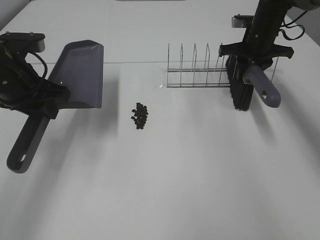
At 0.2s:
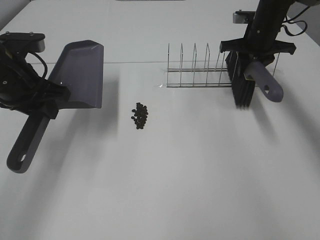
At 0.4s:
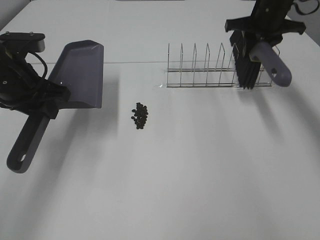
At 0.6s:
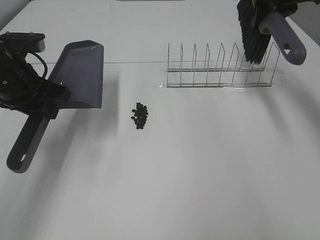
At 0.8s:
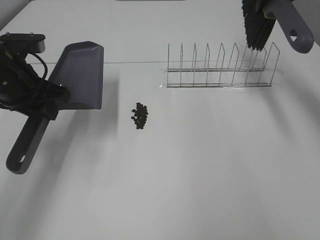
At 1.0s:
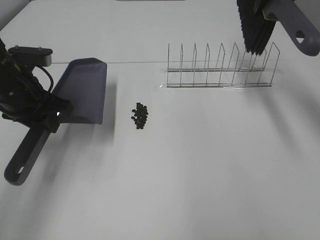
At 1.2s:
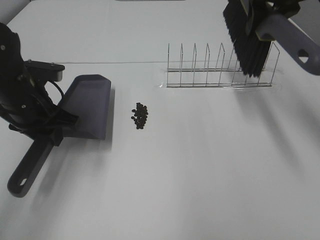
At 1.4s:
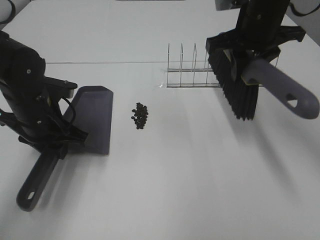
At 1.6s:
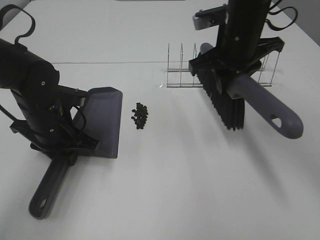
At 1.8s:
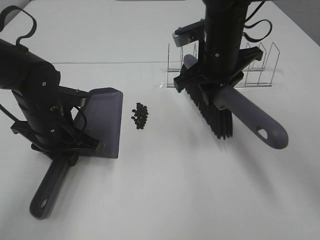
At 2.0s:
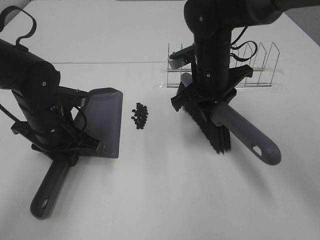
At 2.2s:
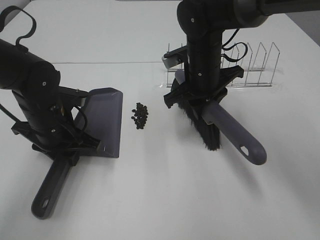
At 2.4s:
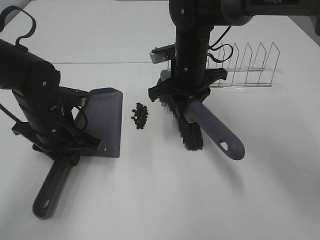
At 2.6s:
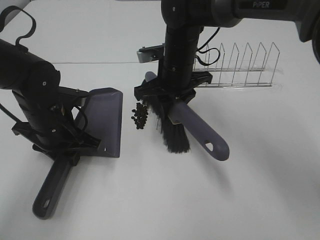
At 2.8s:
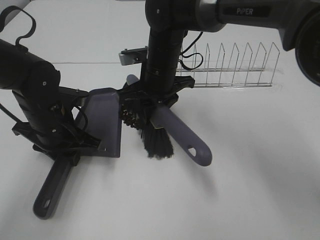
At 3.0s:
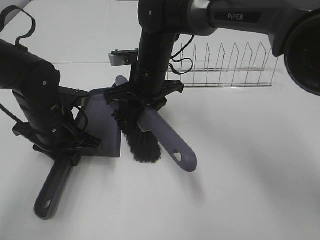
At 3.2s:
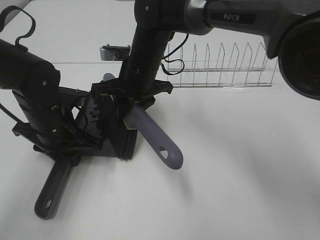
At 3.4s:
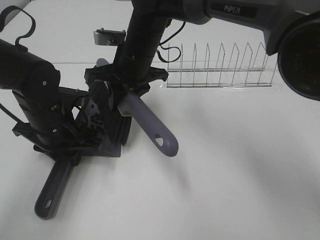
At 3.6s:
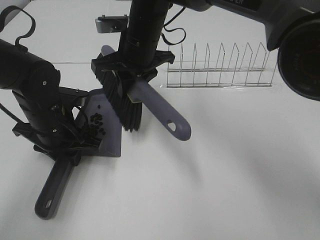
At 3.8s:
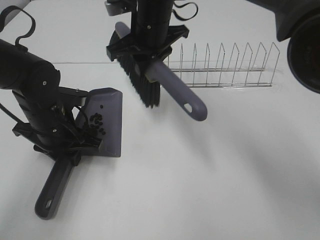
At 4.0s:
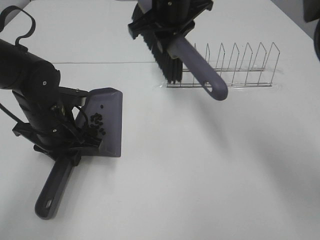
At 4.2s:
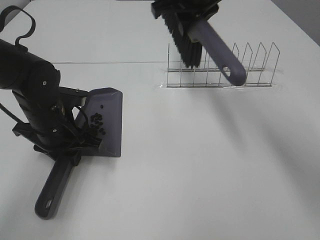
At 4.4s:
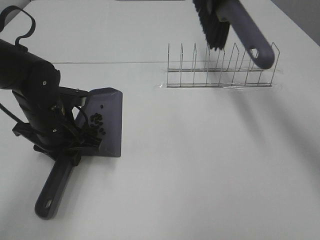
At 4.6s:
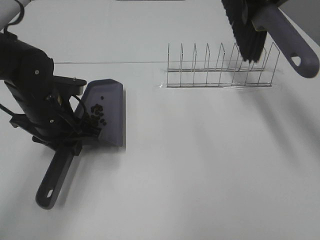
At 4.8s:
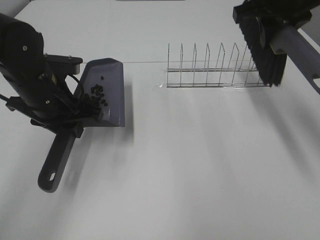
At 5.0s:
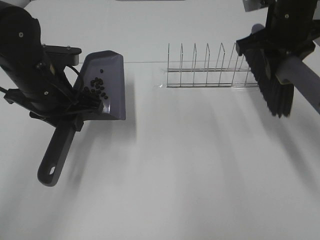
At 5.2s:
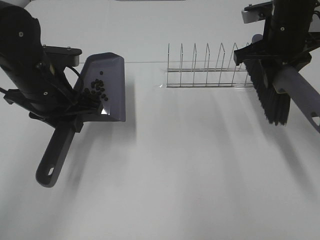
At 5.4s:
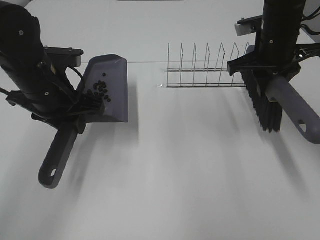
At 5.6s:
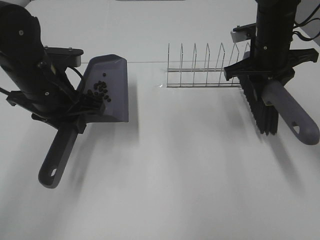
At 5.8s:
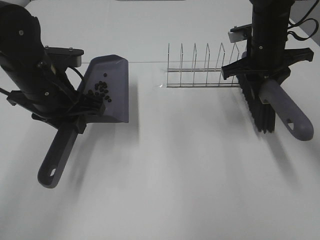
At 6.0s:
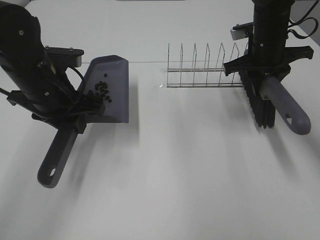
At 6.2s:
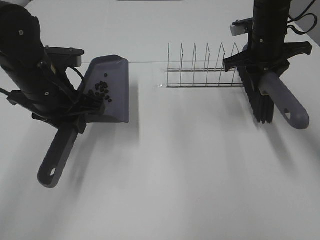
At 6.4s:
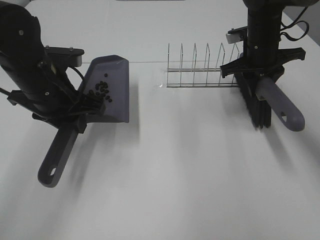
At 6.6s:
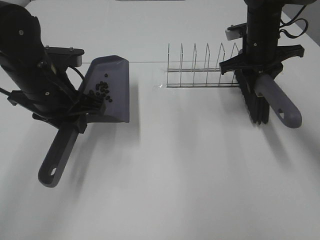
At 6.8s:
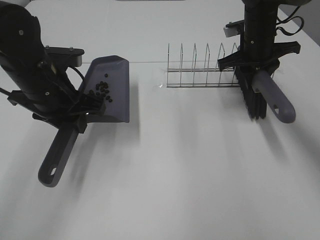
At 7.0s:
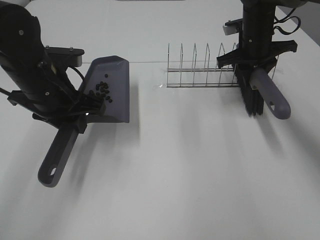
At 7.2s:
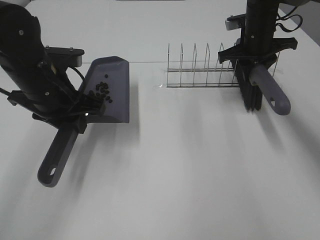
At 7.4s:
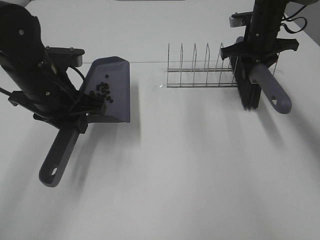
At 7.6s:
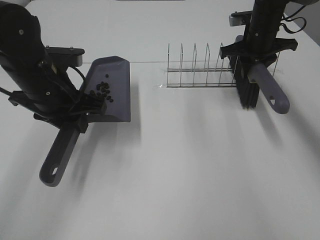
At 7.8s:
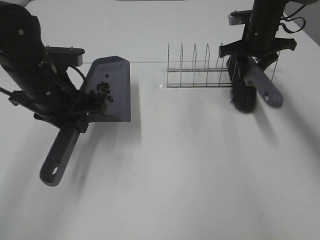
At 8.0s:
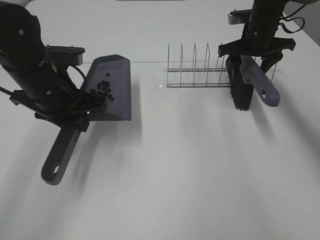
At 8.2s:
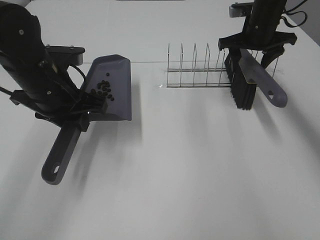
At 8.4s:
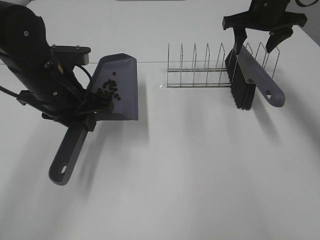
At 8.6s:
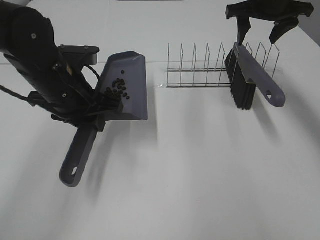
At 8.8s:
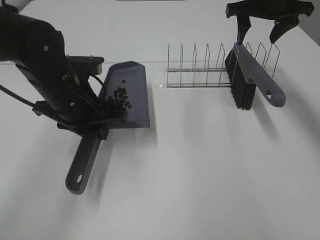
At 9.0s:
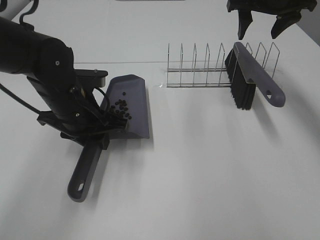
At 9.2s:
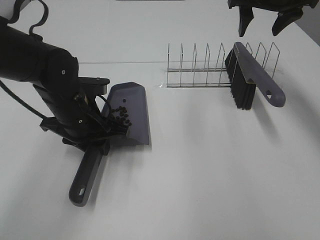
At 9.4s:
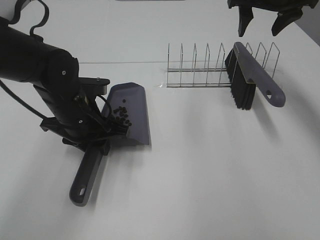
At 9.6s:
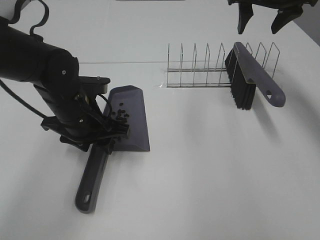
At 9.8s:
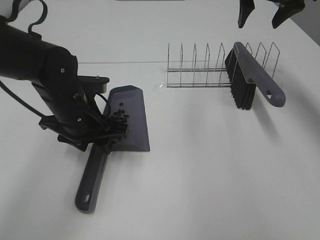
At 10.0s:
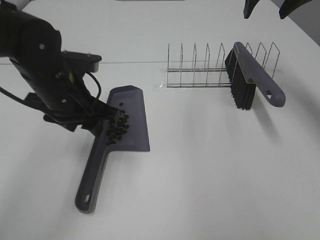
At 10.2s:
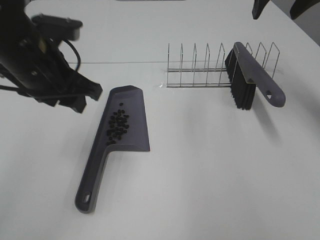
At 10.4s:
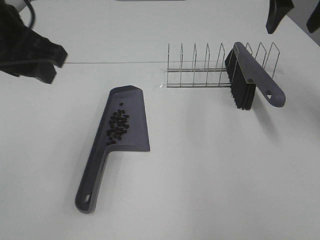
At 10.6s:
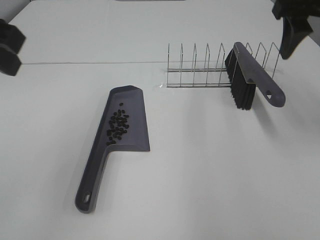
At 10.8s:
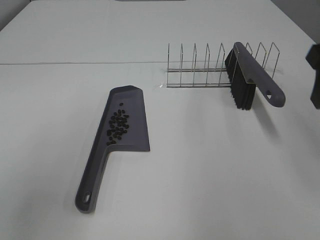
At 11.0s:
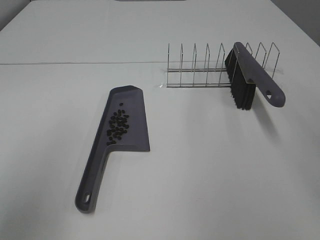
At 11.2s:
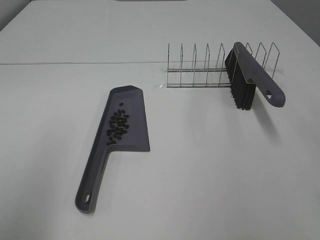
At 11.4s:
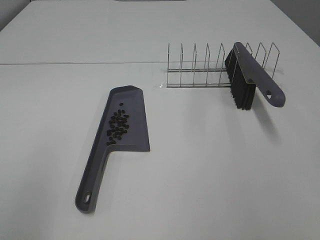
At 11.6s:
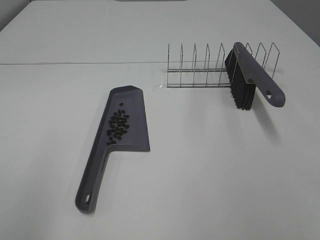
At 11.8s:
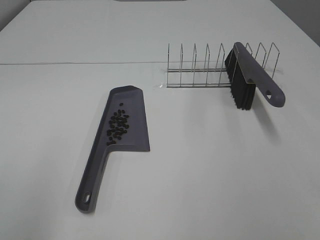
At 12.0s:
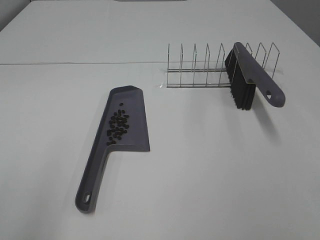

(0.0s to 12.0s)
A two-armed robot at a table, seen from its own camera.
Task of the whole recording: Sweep Coffee Bean.
Step, 0.0s - 3.4s: Right hand:sweep the coffee beans into the dustpan.
Step, 3.6s - 8.4s: Right hand:place the broom on the rack.
Step, 8.6s - 9.6s: Left hand:place the dustpan on the table.
0.0s - 1.6s: The right gripper shifts approximately 20 cm backward, to the left and upward, while the left gripper shifts about 10 cm downward.
1.6s - 3.0s: The right gripper travels to the left and downward by approximately 15 cm.
3.0s - 4.4s: The right gripper heads upward and to the right, covering roughly 25 cm.
4.4s - 6.0s: The right gripper travels downward and to the right by some 15 cm. The left gripper travels upward by some 5 cm.
6.0s - 7.6s: The right gripper heads forward, covering approximately 5 cm.
7.6s - 9.0s: The left gripper shifts by about 5 cm, while the right gripper travels upward by approximately 10 cm, and opens its fingers.
9.0s - 10.4s: The right gripper moves backward and upward, approximately 10 cm, while the left gripper shifts some 20 cm upward, and opens.
10.4s - 12.0s: The left gripper travels backward and to the left by about 20 cm; the right gripper travels backward by some 35 cm.

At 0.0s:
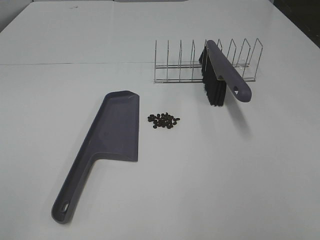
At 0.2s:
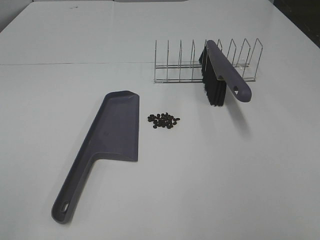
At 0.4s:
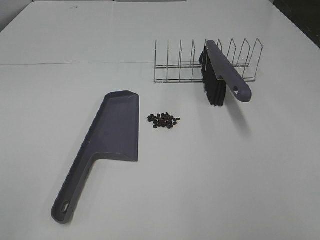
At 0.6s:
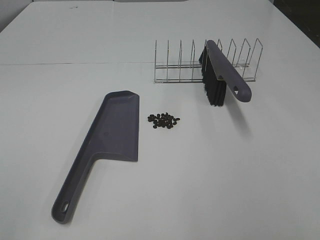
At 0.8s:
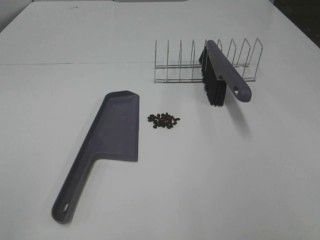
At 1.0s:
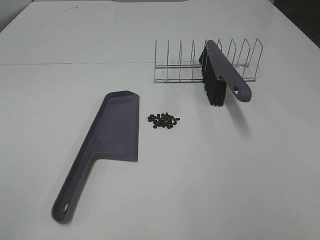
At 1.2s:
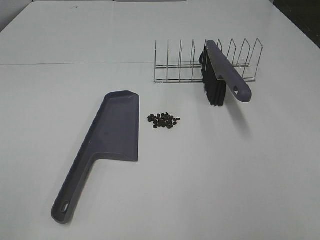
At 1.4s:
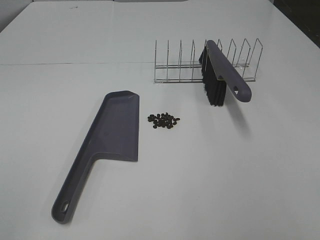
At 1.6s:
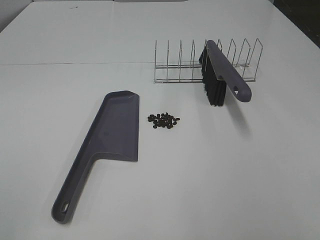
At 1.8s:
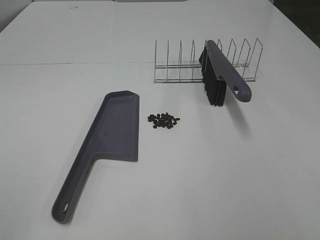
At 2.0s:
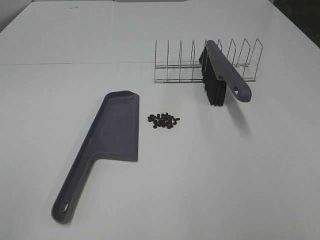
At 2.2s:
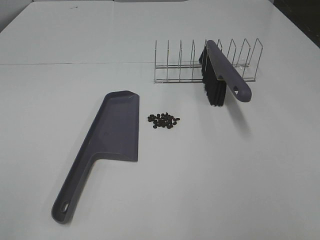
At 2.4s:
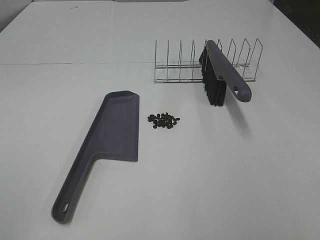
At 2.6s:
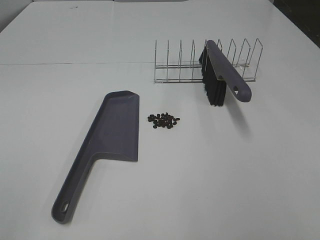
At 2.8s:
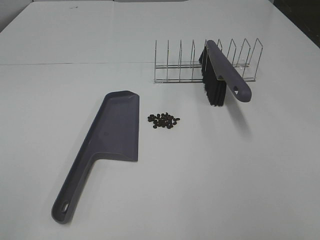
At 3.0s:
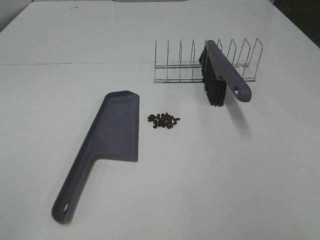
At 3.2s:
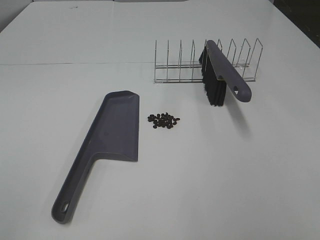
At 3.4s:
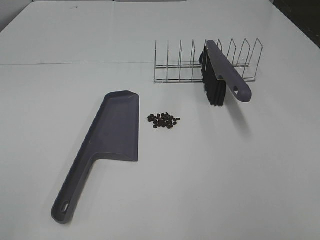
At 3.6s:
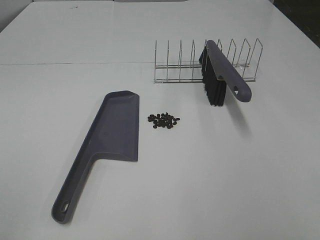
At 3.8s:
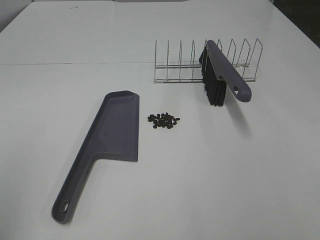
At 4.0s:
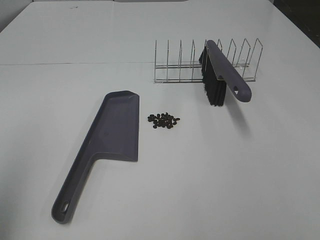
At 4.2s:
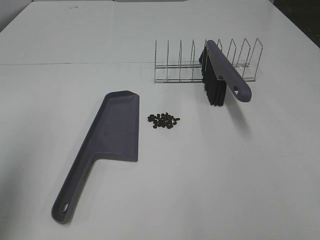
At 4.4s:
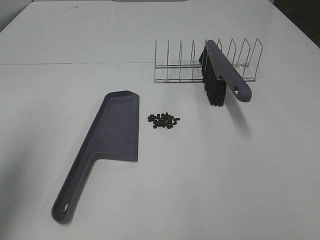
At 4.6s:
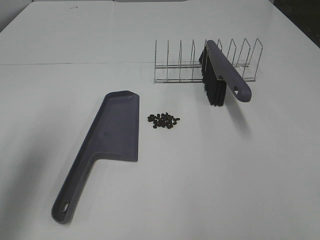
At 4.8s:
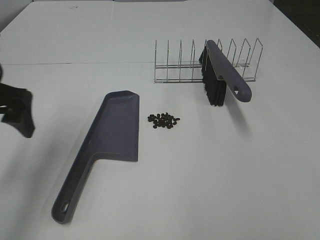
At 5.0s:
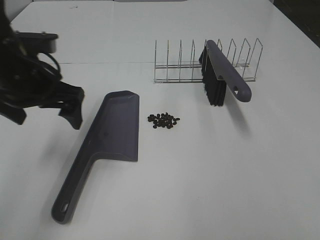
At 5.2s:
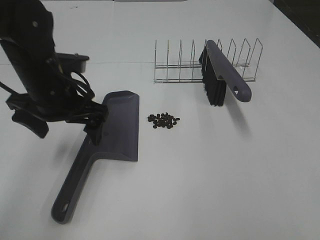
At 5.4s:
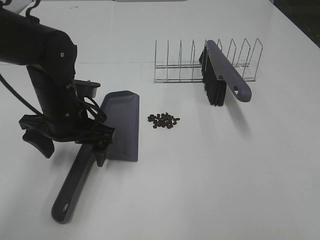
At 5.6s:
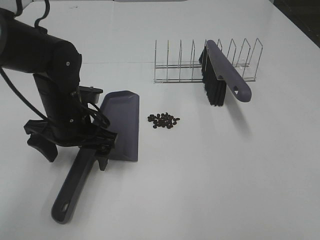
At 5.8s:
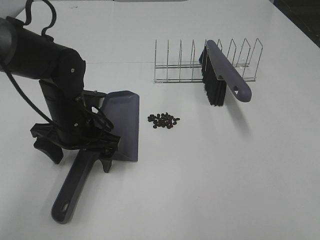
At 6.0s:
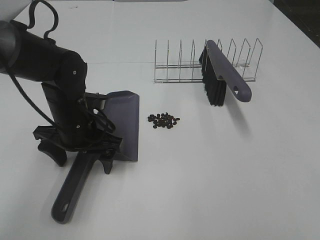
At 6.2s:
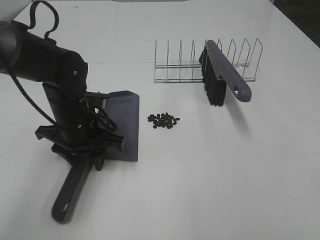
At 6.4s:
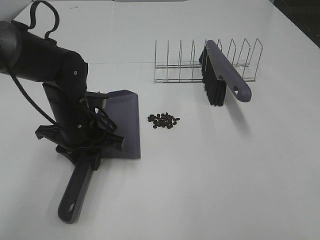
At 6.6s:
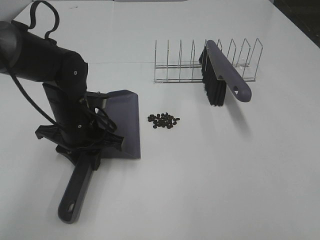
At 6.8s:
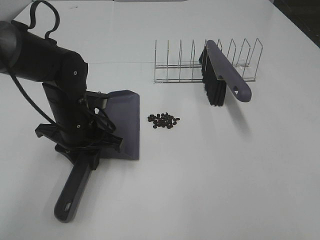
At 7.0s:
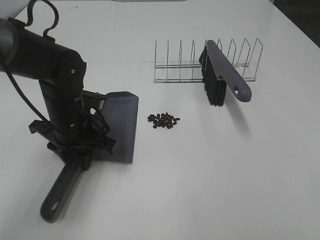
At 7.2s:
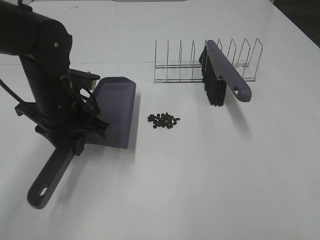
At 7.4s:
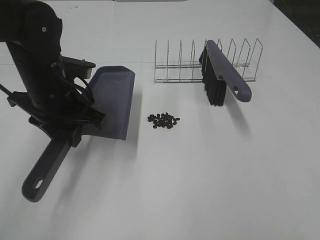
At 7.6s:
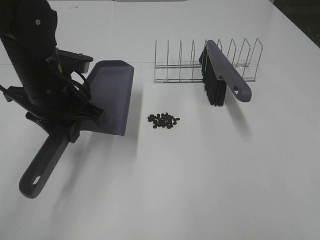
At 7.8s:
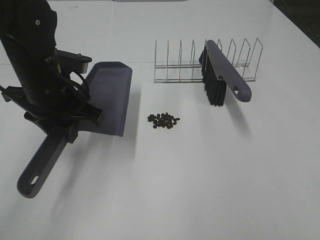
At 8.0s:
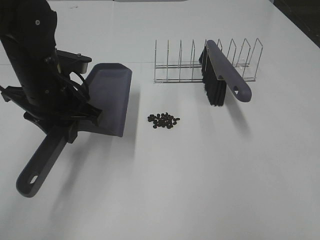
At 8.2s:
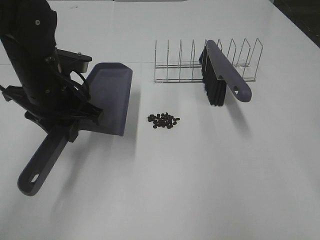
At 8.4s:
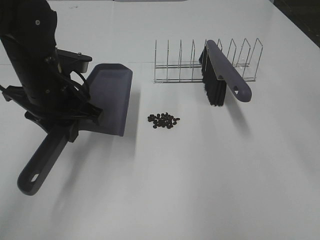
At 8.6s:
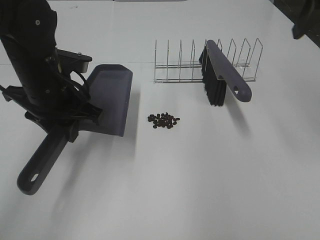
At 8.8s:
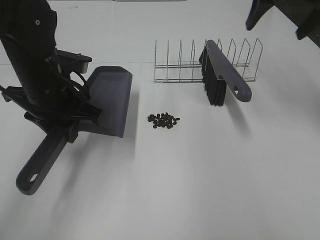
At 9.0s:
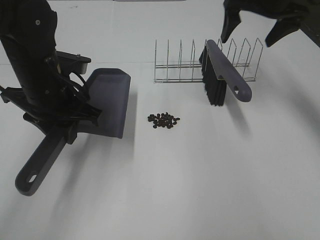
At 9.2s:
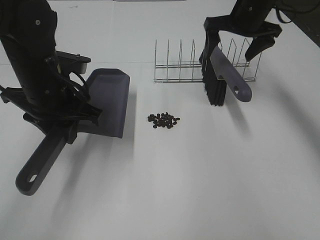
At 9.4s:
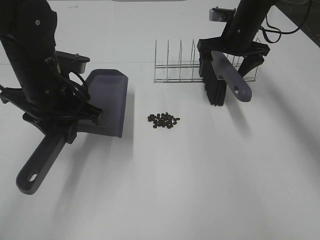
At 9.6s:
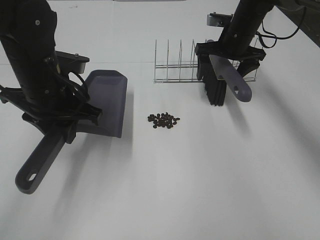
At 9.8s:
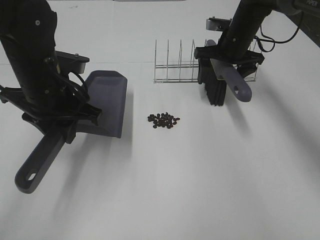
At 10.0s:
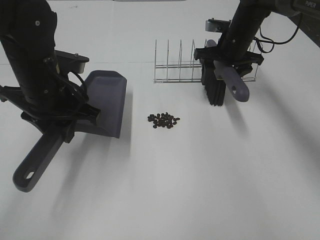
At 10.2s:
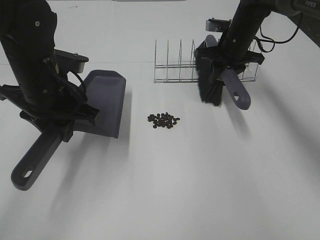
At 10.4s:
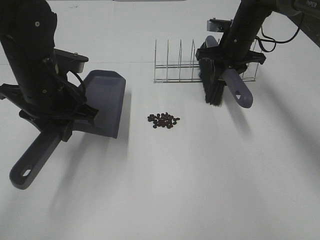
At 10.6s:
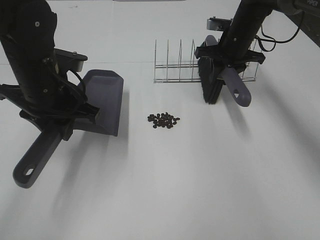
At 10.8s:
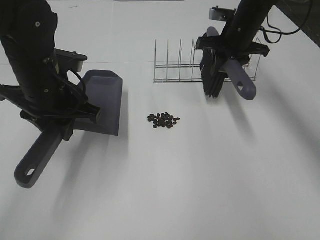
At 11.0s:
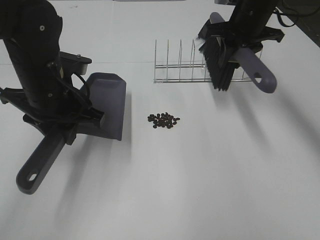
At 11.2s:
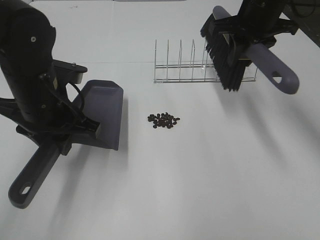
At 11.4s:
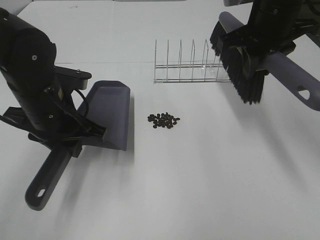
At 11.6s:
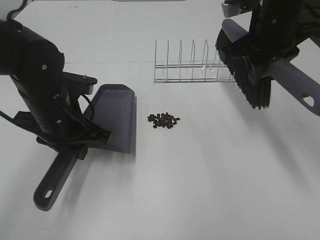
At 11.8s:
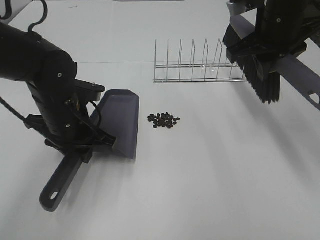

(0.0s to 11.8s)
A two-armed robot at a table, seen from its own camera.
Task of the whole recording: Sweep Coffee Bean.
Step, 0.0s - 6.4s: Left hand: grab the dustpan.
Step, 7.8s - 10.2s: Right hand:grab the broom.
0.0s - 3.0s: Neither gripper changes place.
3.0s - 4.4s: The left gripper travels forward by roughly 20 cm.
4.4s - 6.0s: The left gripper goes about 30 cm downward, to the right and forward.
6.0s - 7.4s: The left gripper is displaced upward by some 10 cm, and closes.
7.4s - 8.8s: The right gripper moves forward, approximately 40 cm, and opens up.
8.8s - 10.4s: The right gripper shifts roughly 20 cm downward and forward, and closes its fingers.
10.4s - 11.8s: The left gripper shifts about 5 cm downward. The right gripper travels backward and upward by about 15 cm.
